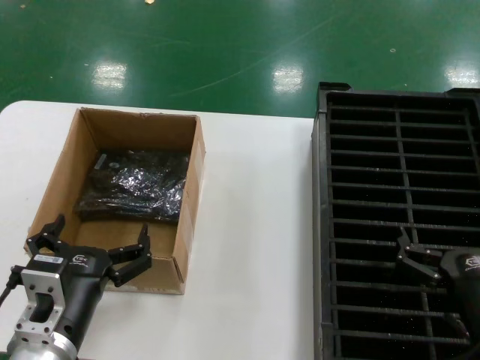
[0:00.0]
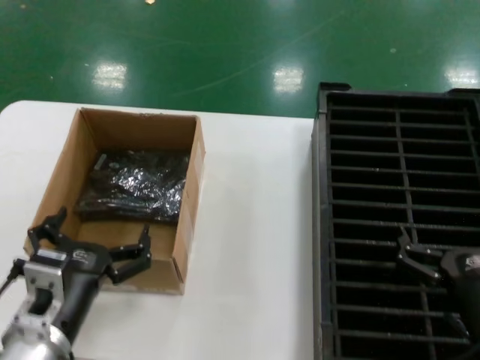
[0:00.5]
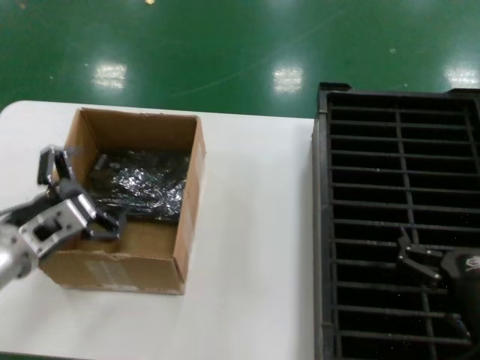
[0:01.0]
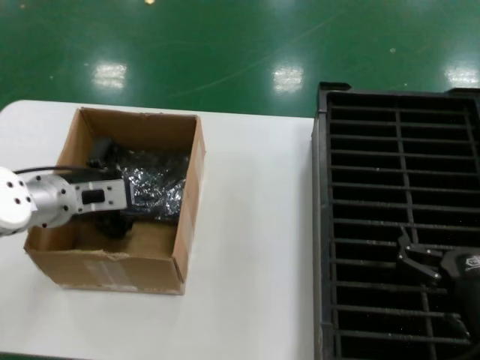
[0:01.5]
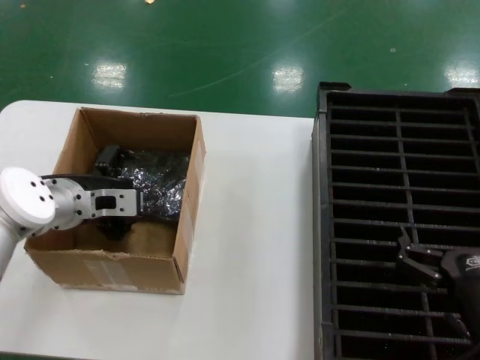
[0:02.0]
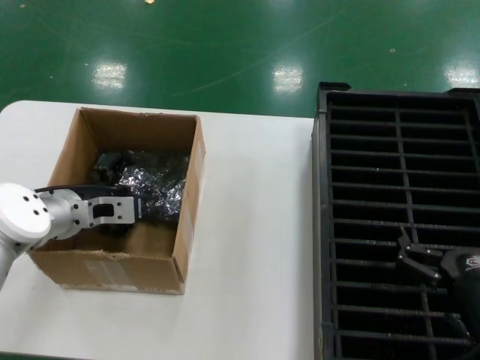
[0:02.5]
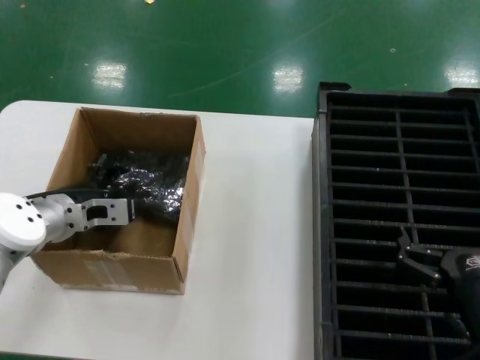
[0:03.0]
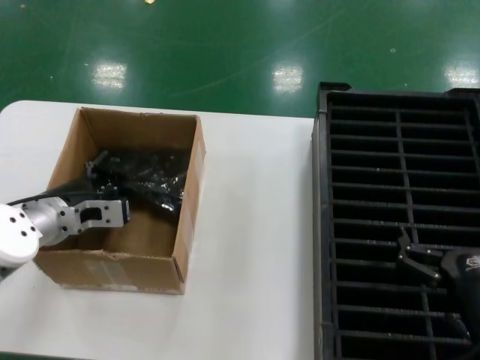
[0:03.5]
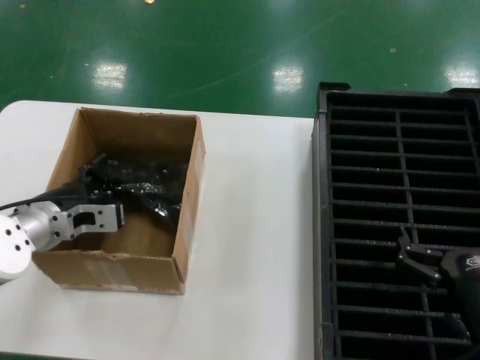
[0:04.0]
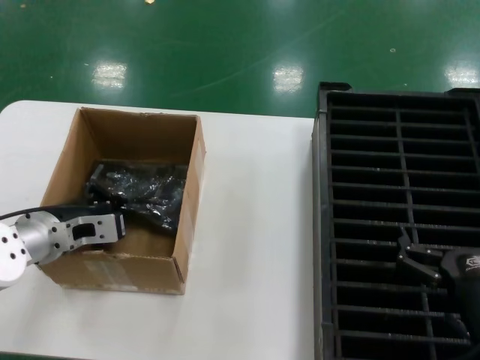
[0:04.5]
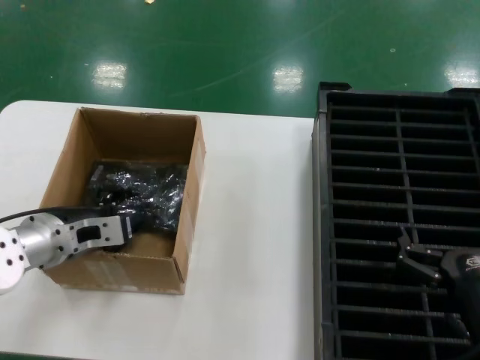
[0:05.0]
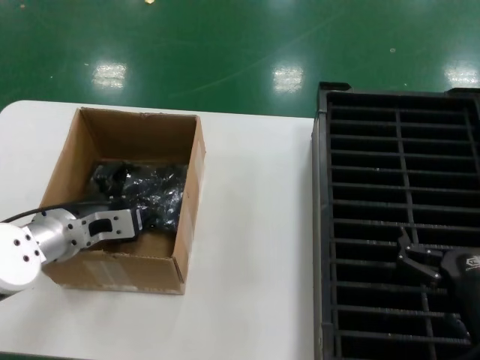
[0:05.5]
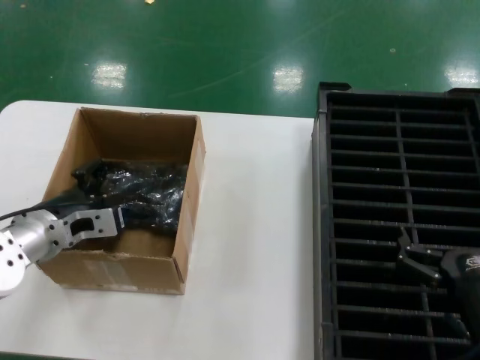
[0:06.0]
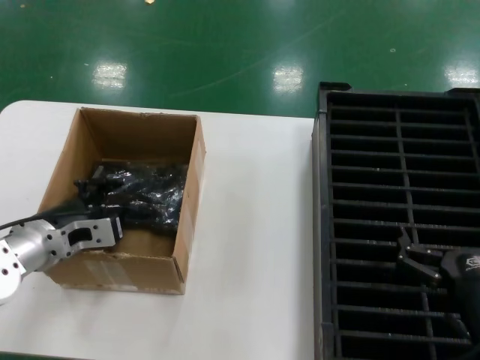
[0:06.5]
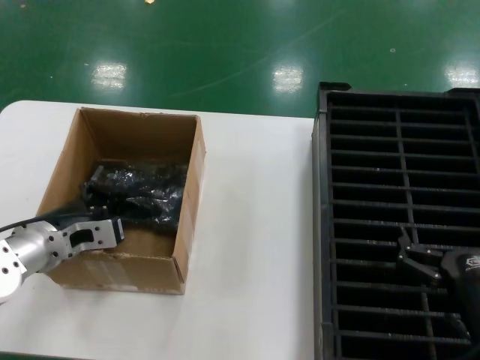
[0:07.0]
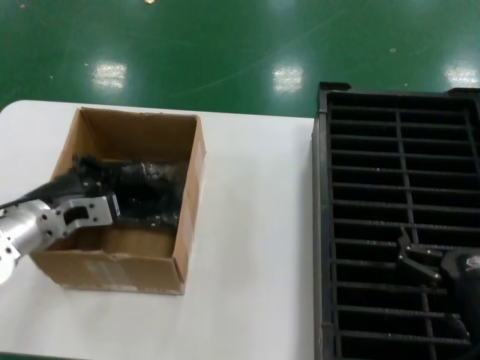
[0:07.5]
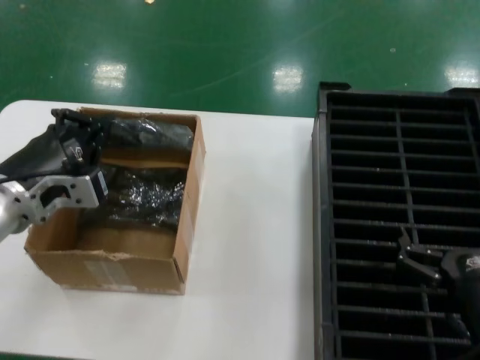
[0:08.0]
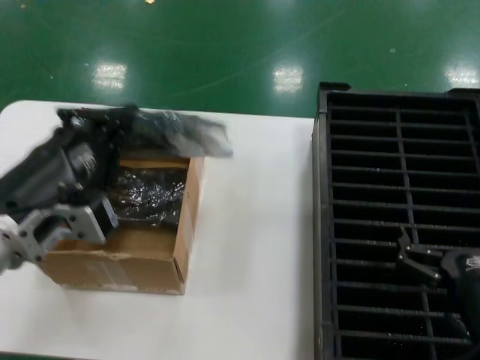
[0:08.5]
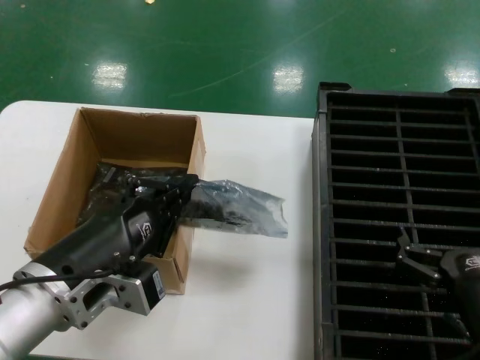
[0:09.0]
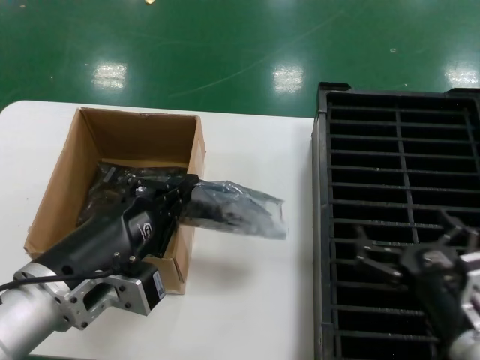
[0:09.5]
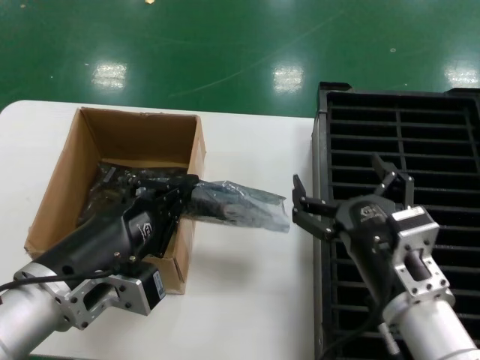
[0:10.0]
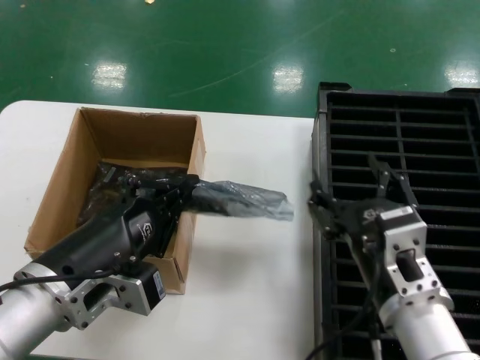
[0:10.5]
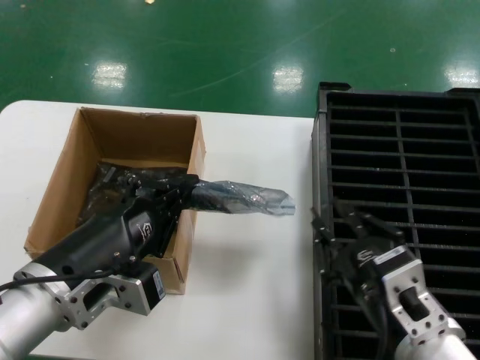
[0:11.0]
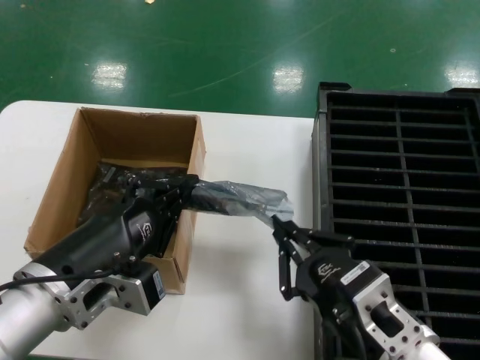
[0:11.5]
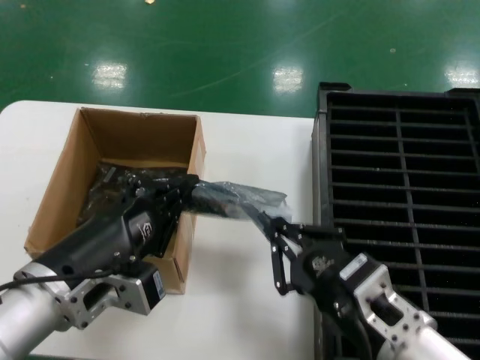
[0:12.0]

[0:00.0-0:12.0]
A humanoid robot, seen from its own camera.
Task of the whole recording: take out graphics card from box remove packaging put into black container.
Step, 0:00.0 to 0:07.0: Grasp the bag.
Step, 0:07.5 to 0:08.5: Lift the bag.
0:00.0 to 0:02.0: The left hand travels forward and upward by some 25 cm.
0:02.0 to 0:04.0: The hands move only a little.
0:04.0 to 0:06.0: The hands move only a little.
0:06.0 to 0:08.0: The left hand heads upward and backward, covering approximately 10 cm.
0:08.0 to 0:10.0: The left hand heads backward and to the right, covering about 15 cm. The right hand goes about 10 cm to the left and upward.

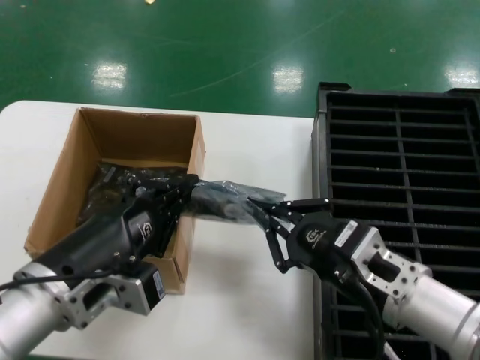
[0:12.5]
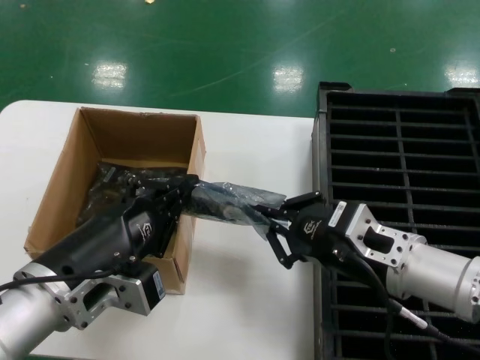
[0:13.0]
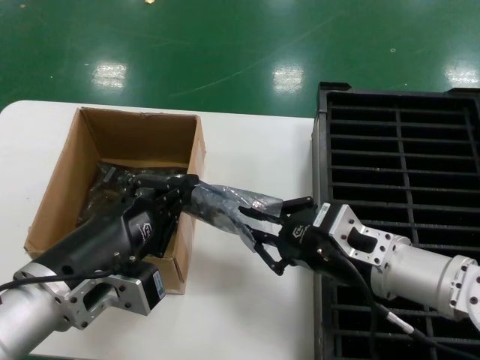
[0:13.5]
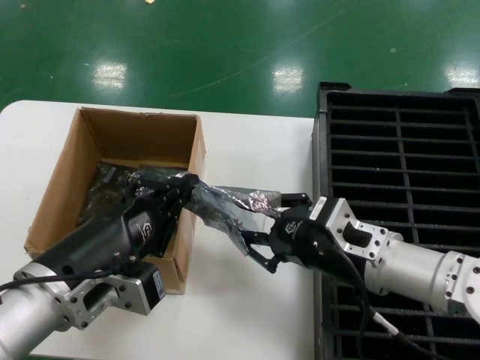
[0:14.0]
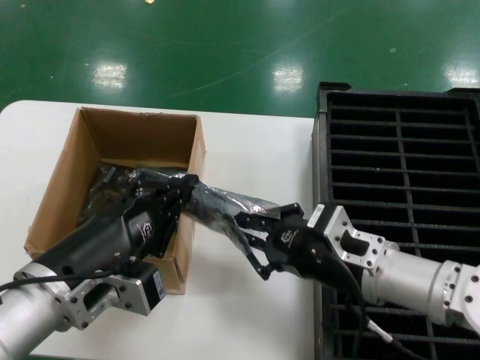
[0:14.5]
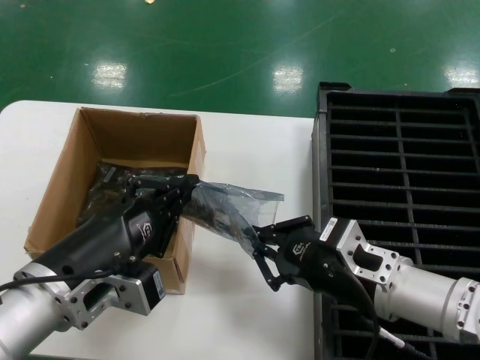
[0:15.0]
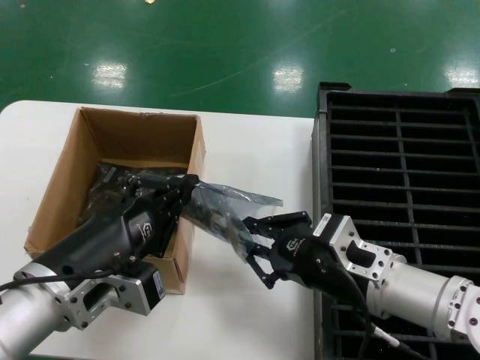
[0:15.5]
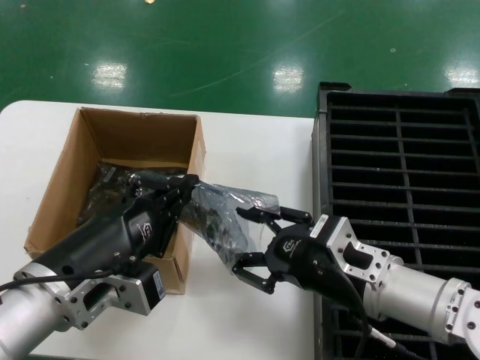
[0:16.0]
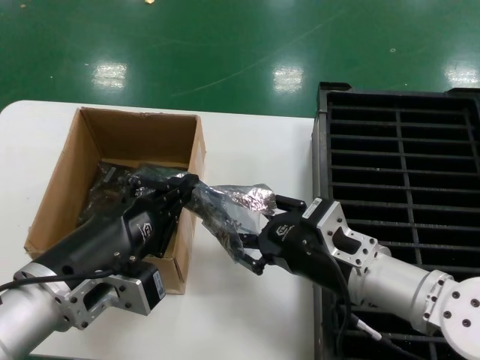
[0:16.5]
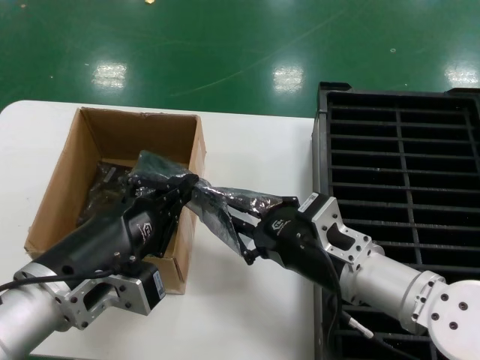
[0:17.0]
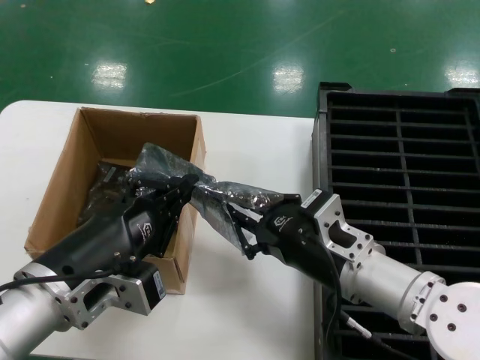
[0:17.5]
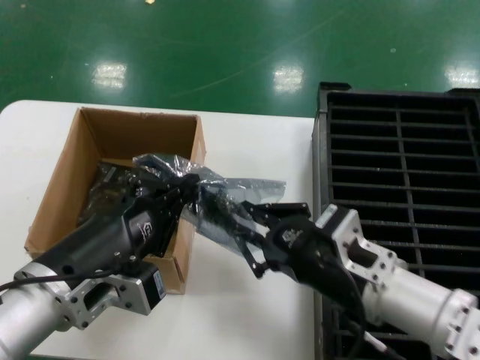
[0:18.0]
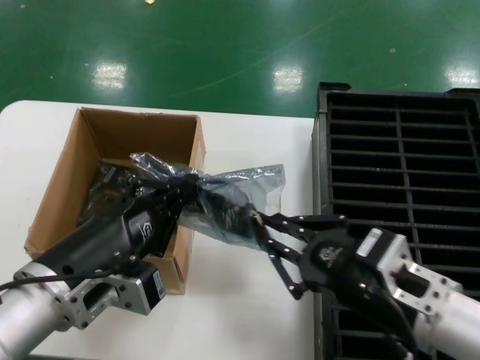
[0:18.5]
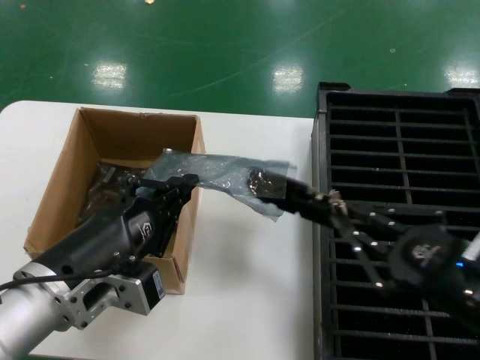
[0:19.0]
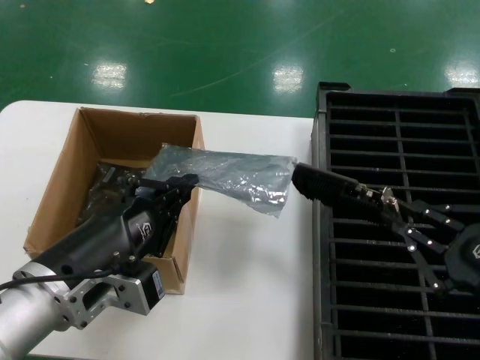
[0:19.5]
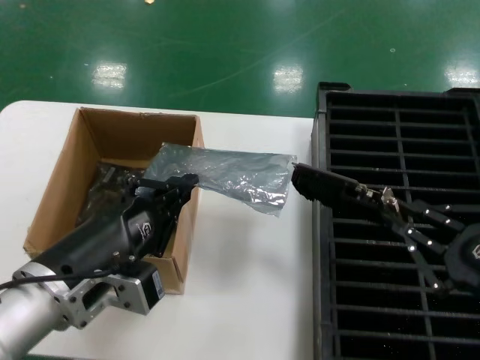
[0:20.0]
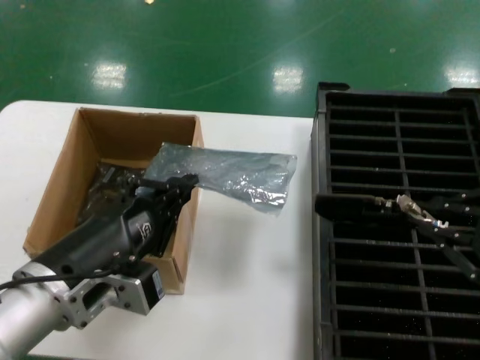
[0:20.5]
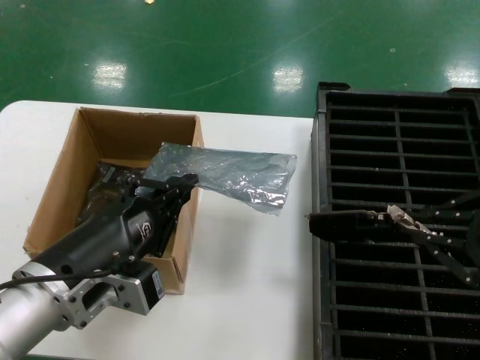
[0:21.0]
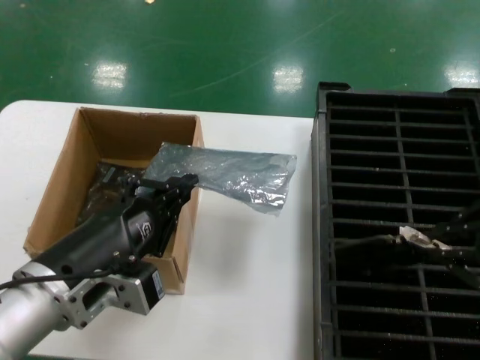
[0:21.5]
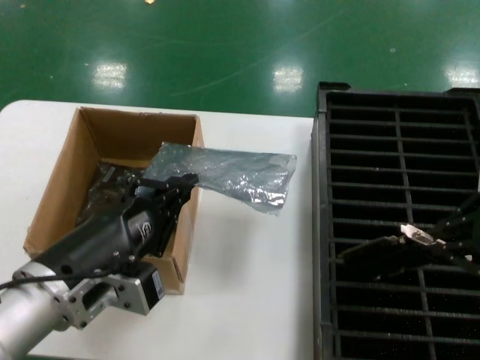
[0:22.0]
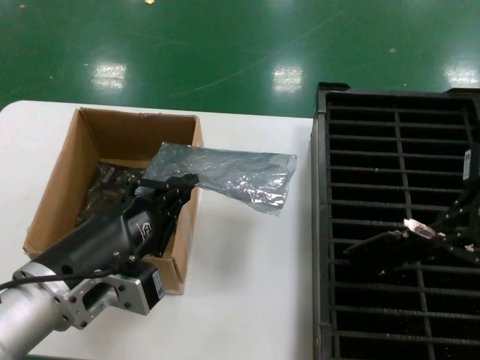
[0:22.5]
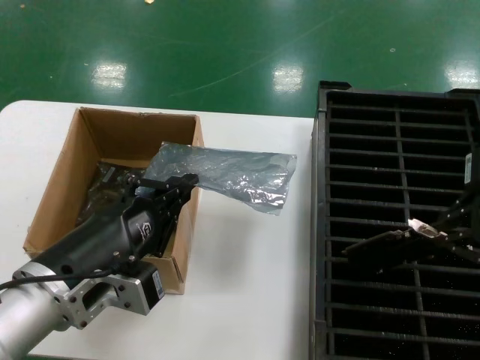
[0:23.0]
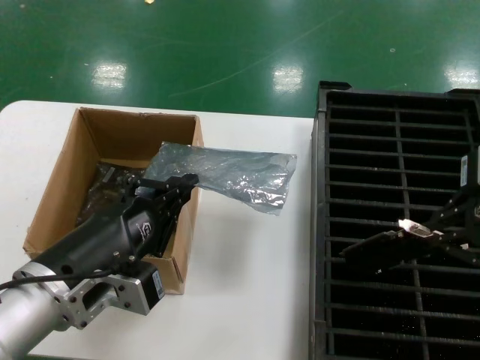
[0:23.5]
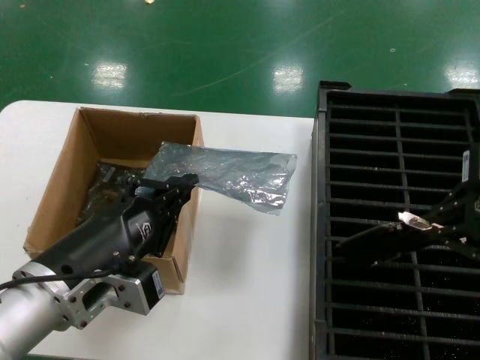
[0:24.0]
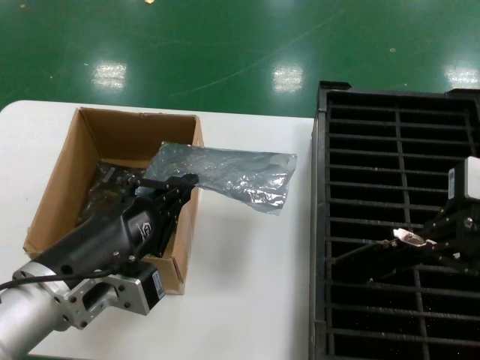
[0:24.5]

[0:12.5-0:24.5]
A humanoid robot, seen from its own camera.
Task of the whole recording: take out graphics card from box remove packaging put into black container.
Step, 0:12.5 to 0:20.0: Take out the hard disk of the bag.
0:12.5 to 0:14.5: The right hand goes some 5 cm forward.
0:14.5 to 0:16.5: The hands stay close to where they were, moving slightly.
0:16.5 to 0:18.5: The right hand travels backward by some 10 cm.
0:18.5 to 0:20.5: The right hand travels to the right and upward by about 20 cm.
0:20.5 to 0:22.5: The right hand is displaced forward and upward by about 10 cm.
0:22.5 to 0:24.5: The hands move only a little.

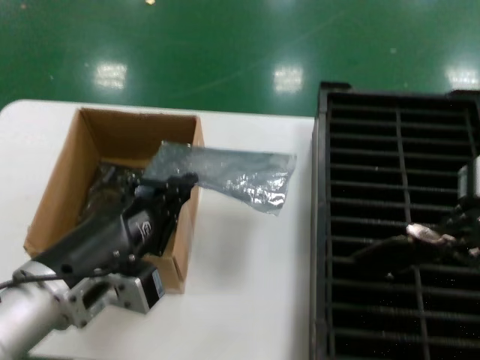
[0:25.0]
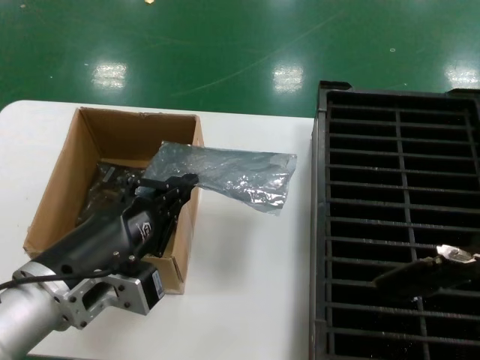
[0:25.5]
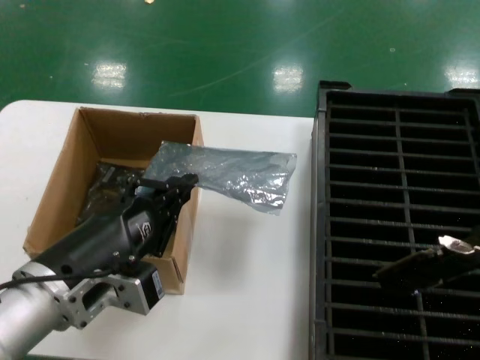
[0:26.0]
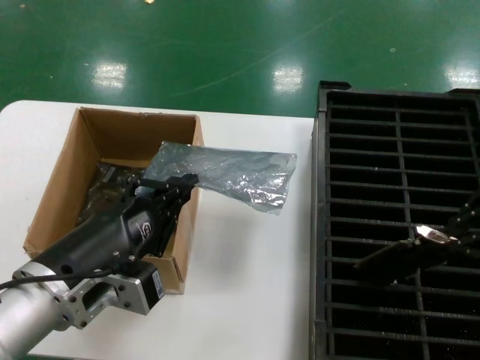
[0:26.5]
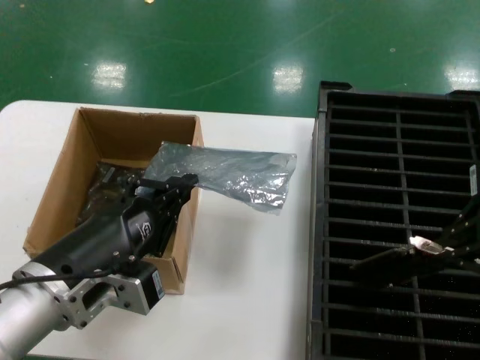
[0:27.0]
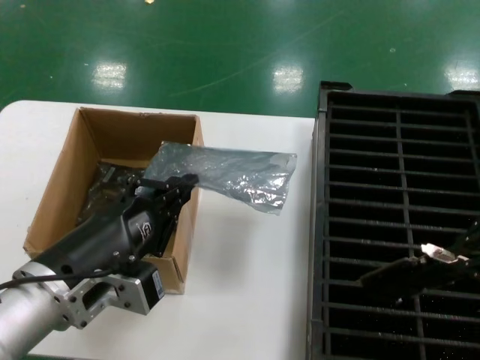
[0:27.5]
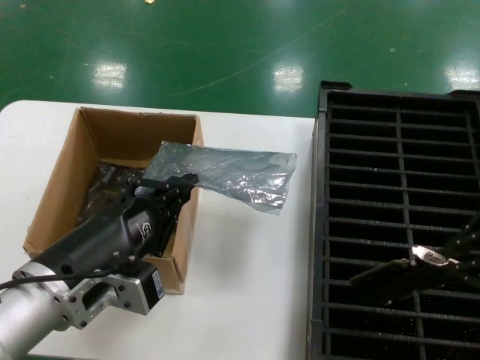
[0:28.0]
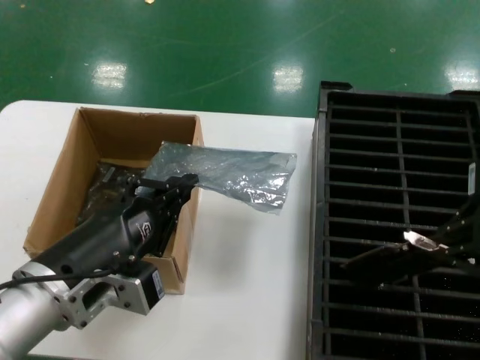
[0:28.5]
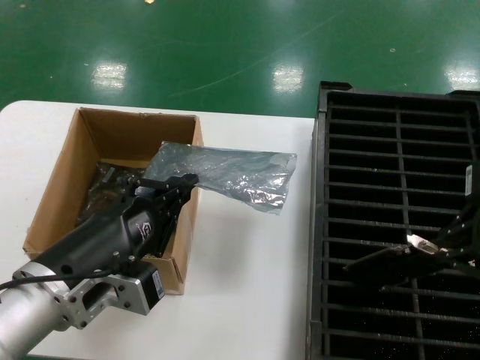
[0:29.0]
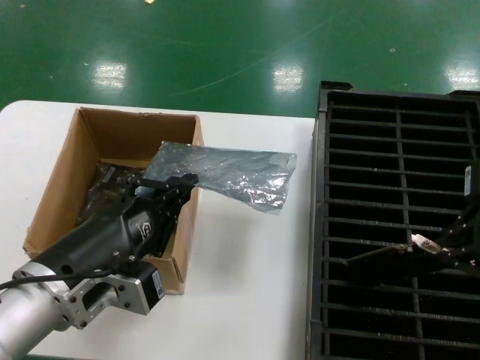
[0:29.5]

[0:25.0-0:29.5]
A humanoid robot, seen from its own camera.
Task of the whole recording: take out graphics card from box remove packaging put into black container.
0:25.0 to 0:27.0: The hands stay close to where they were, moving slightly.
